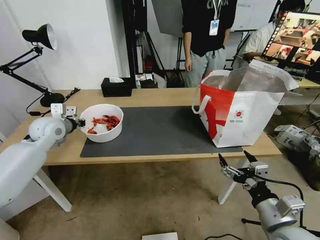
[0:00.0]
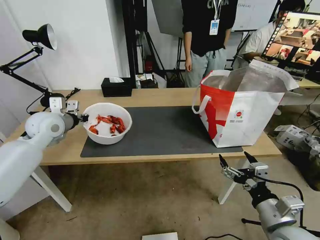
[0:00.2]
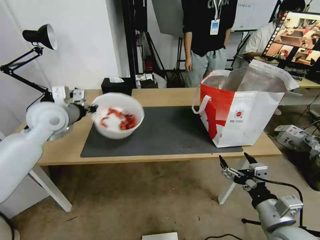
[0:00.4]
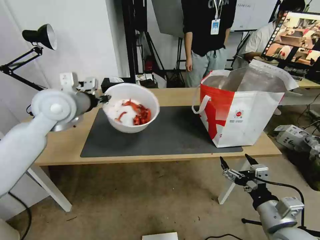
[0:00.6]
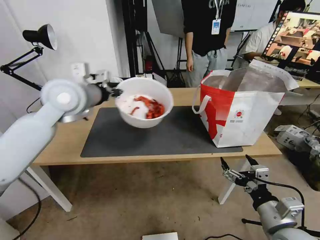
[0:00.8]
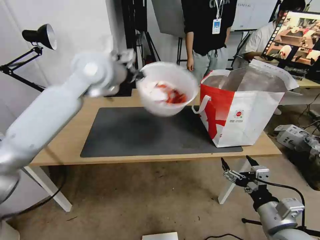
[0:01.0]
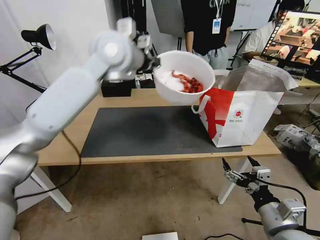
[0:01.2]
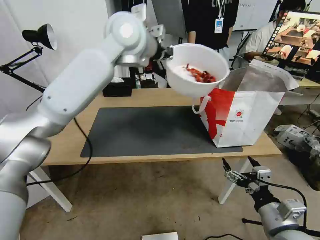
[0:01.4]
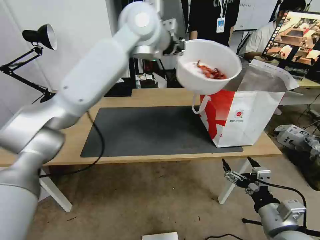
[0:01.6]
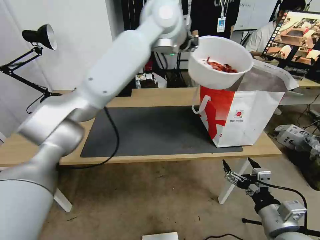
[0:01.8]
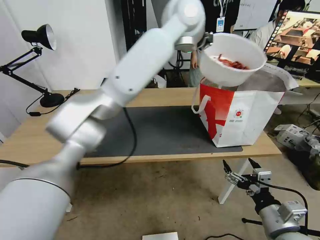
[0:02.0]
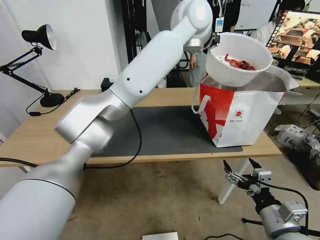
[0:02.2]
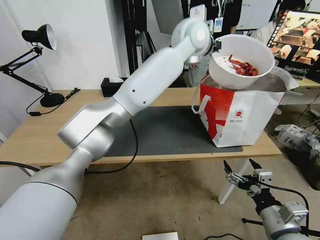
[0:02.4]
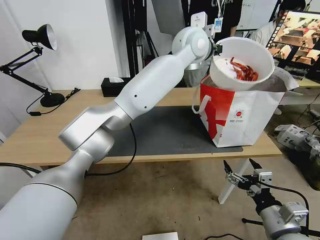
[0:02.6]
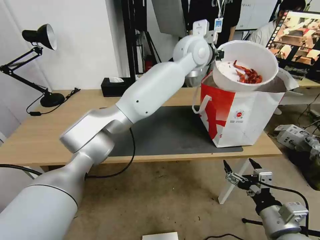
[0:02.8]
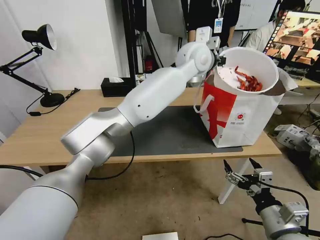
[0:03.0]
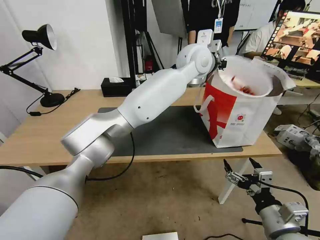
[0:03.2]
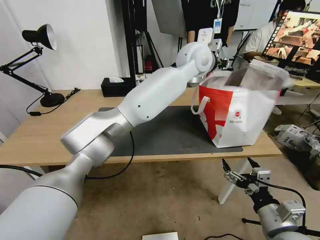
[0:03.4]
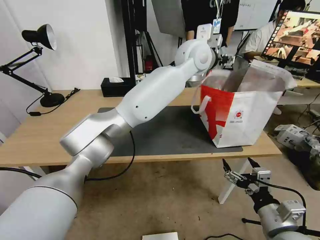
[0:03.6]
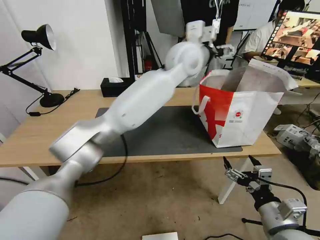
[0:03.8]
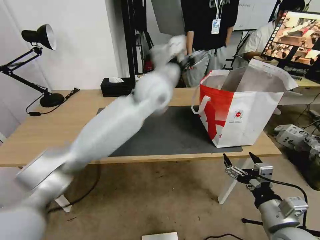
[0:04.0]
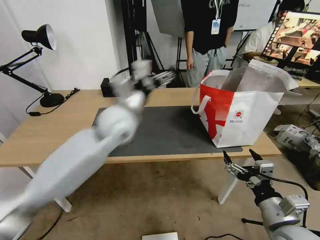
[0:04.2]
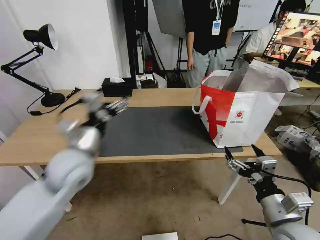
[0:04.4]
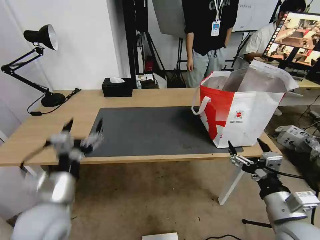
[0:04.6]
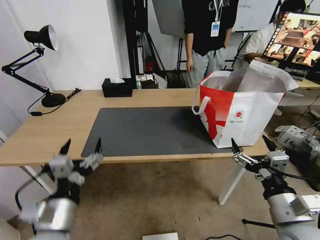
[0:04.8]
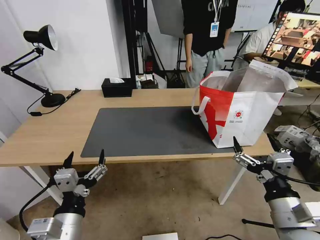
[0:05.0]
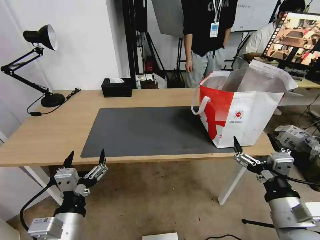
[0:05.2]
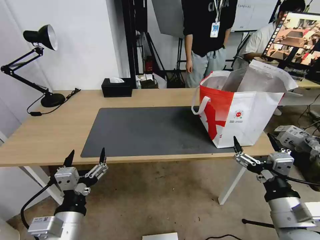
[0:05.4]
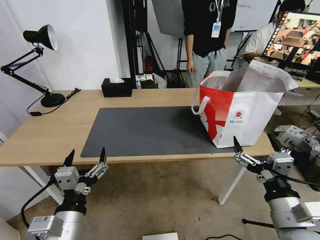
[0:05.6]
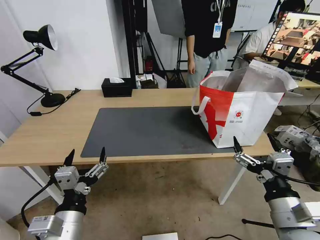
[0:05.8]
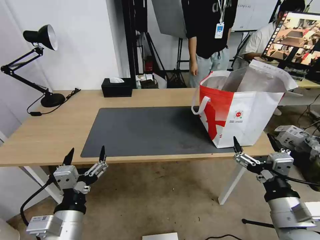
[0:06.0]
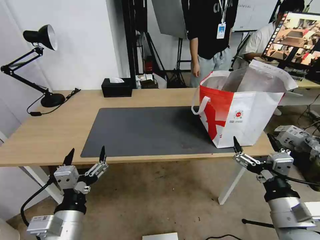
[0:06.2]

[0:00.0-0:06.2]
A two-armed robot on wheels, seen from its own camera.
Task of the whole recording: Pick up the trash from the table and place it into the takeout bag.
0.0 to 1.6 s: The left gripper goes about 40 cm to the right and upward.
1.6 to 3.2 s: The left gripper moves to the right and downward, approximately 15 cm.
3.2 to 4.6 s: The left gripper travels to the left, backward and downward by roughly 50 cm, and opens its fingers.
4.6 to 6.2 s: The left gripper heads backward, covering some 10 cm.

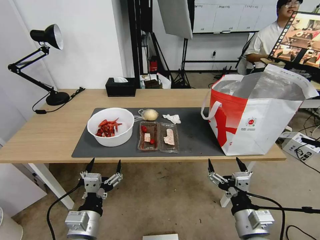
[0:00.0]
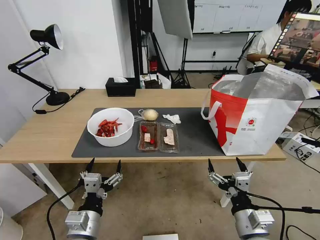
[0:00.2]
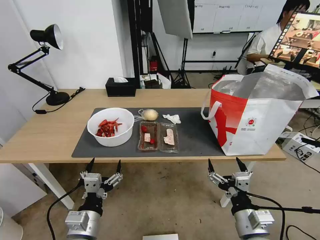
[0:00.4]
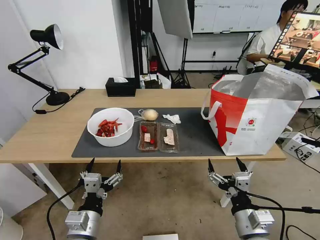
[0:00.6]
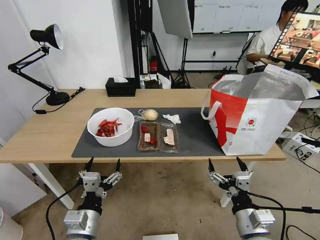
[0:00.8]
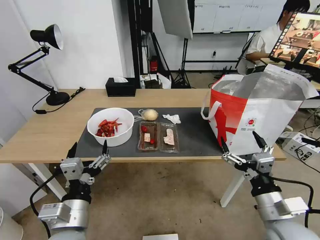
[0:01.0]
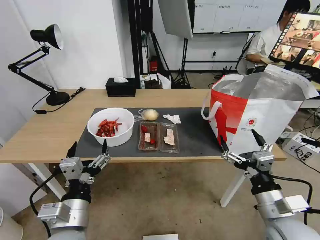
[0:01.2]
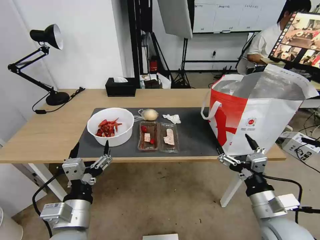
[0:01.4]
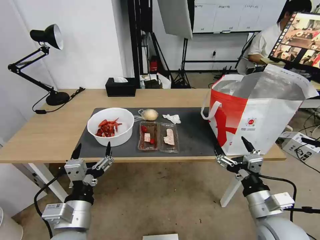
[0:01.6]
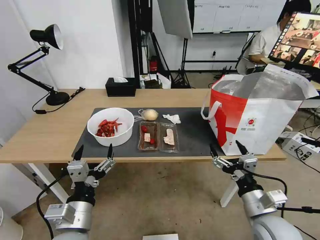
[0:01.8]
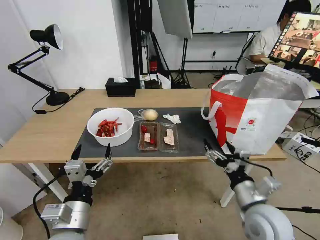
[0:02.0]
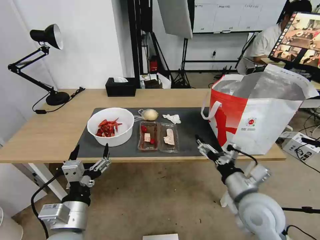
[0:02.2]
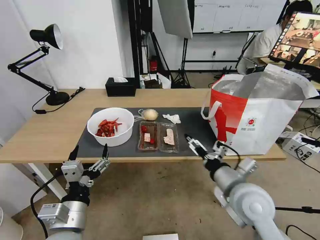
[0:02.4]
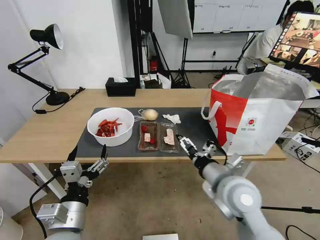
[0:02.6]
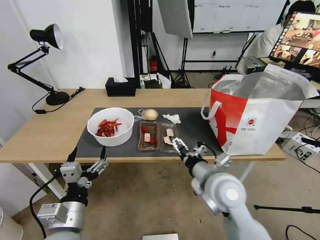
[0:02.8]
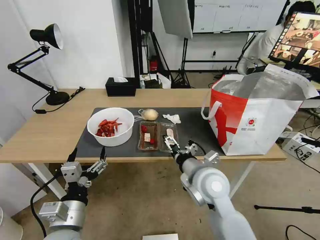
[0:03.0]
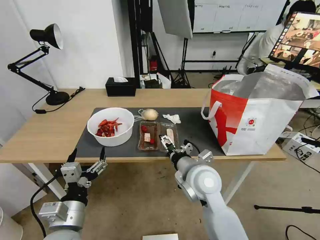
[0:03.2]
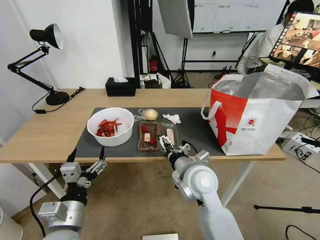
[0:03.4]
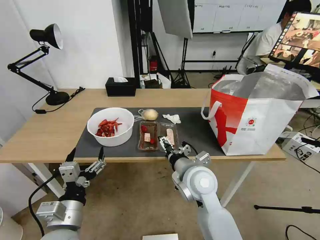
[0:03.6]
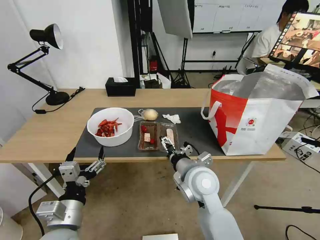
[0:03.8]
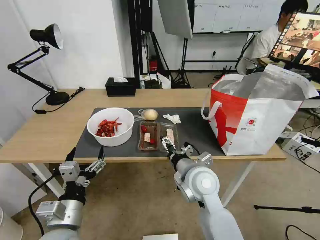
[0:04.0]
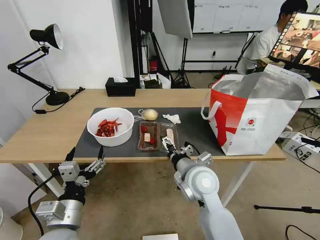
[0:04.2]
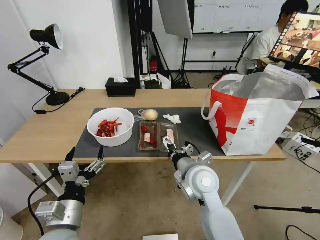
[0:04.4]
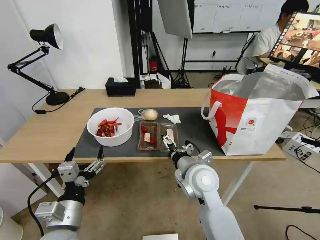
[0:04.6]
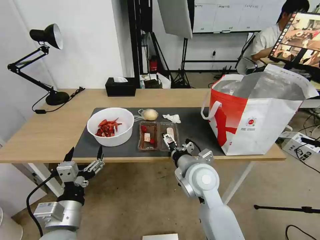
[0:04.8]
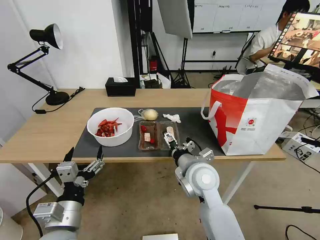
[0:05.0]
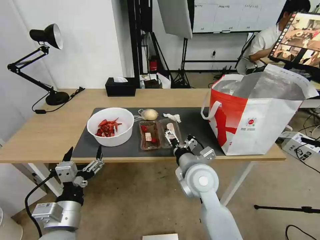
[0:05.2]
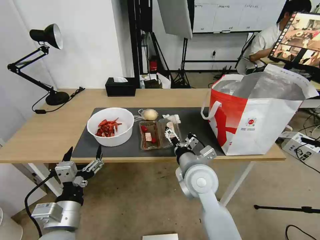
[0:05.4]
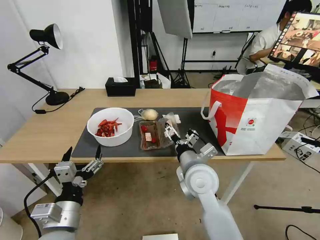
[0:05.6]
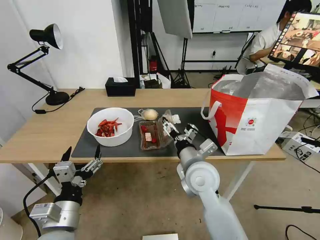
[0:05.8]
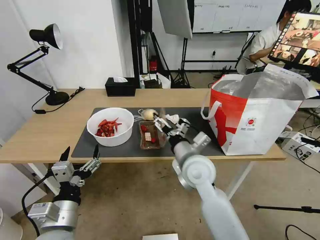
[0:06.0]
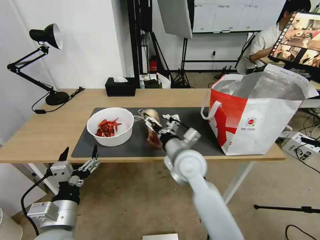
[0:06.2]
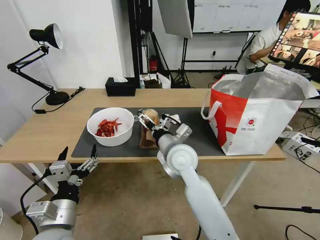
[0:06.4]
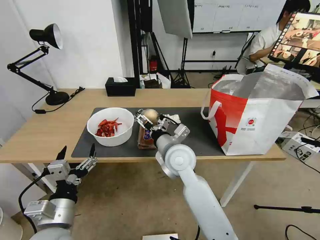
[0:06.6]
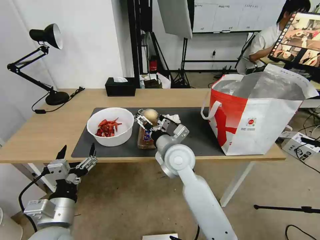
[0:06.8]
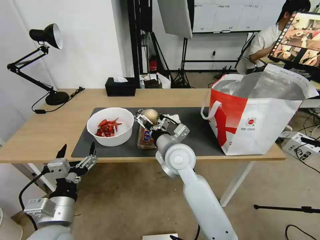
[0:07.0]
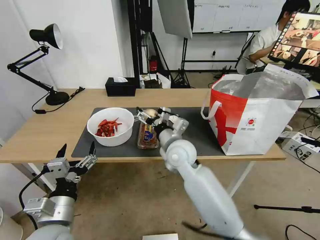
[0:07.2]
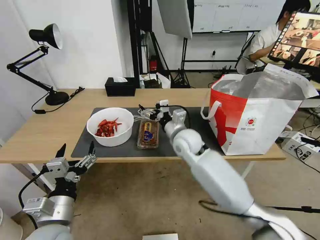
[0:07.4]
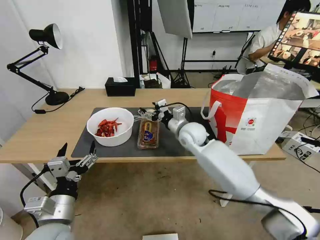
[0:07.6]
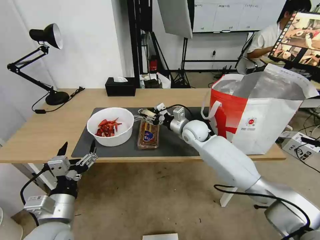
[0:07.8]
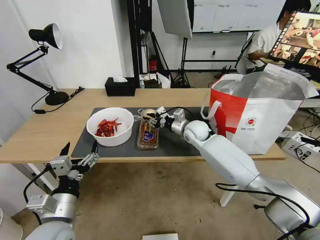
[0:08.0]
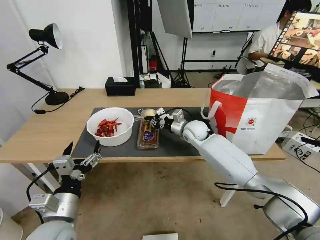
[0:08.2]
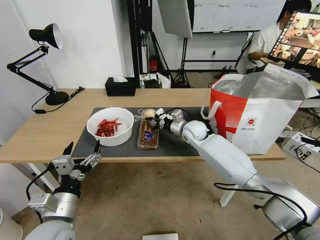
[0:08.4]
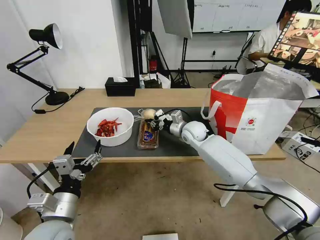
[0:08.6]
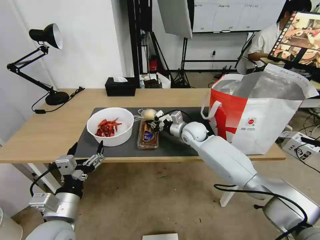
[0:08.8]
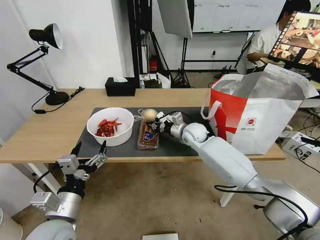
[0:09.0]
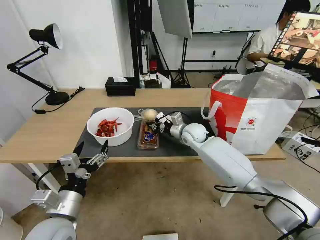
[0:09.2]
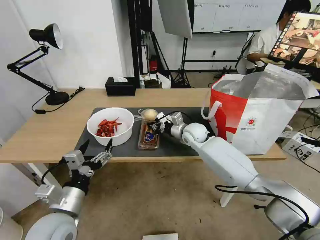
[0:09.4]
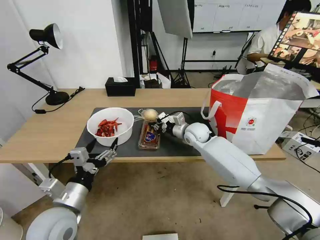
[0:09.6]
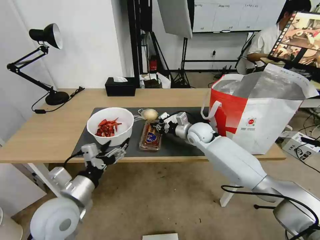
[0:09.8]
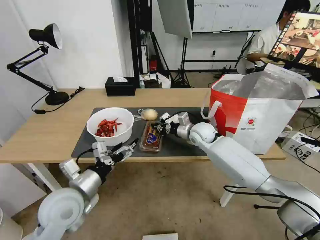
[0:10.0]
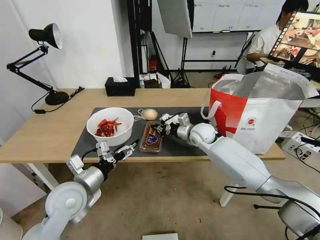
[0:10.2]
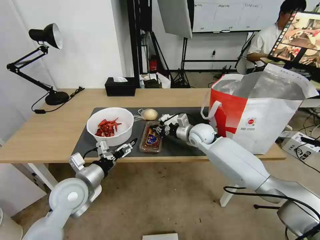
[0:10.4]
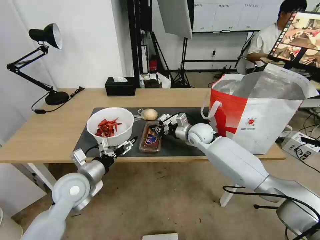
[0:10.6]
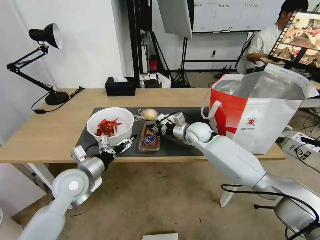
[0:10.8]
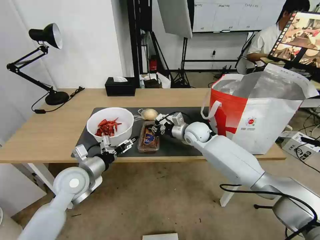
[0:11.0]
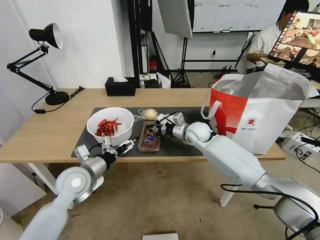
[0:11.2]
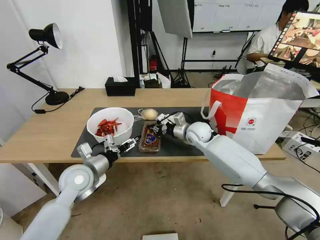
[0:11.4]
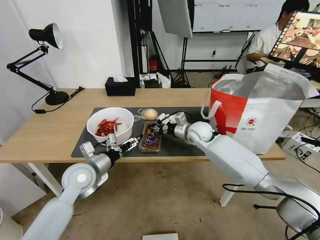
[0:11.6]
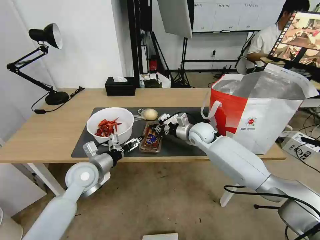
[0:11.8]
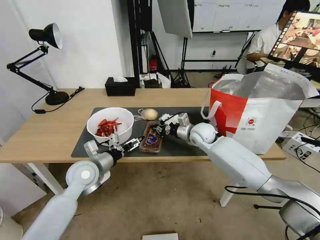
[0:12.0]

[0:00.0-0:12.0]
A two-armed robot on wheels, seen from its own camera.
Task of the whole recording: Pick up the trash from the table and place it into the takeout bag.
1.6 to 3.0 s: The right gripper heads to the left and forward, covering some 20 cm.
3.0 to 4.4 s: The grippers make only small movements.
6.0 to 7.6 s: The right gripper is displaced forward by about 15 cm.
7.6 to 9.0 s: The right gripper moves roughly 5 cm, and closes.
9.0 to 10.4 s: The left gripper heads forward, covering about 10 cm.
10.4 to 12.0 s: The left gripper moves forward, about 5 cm.

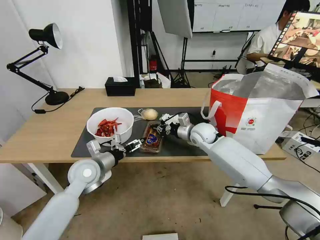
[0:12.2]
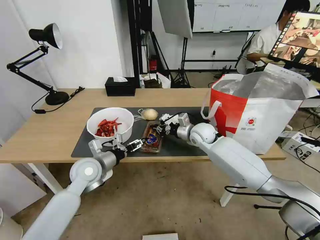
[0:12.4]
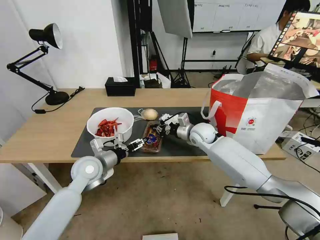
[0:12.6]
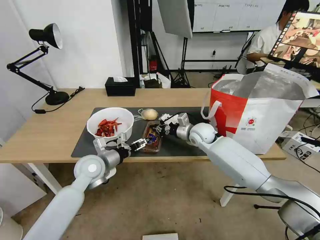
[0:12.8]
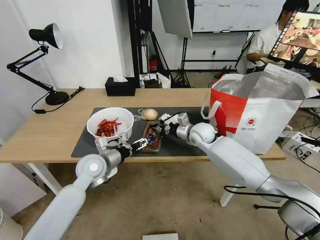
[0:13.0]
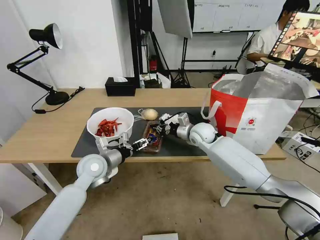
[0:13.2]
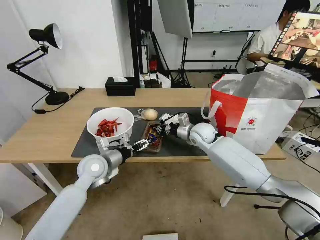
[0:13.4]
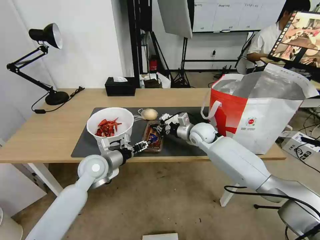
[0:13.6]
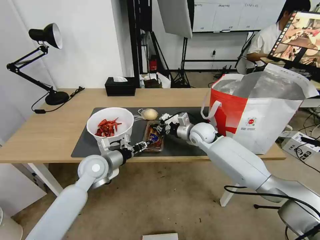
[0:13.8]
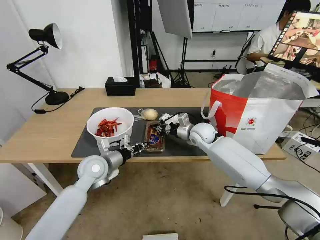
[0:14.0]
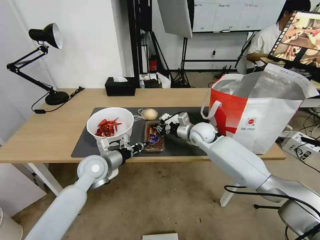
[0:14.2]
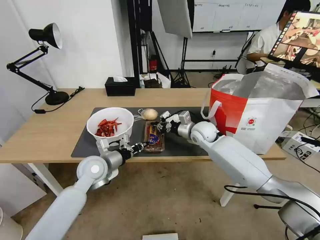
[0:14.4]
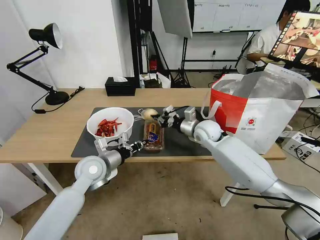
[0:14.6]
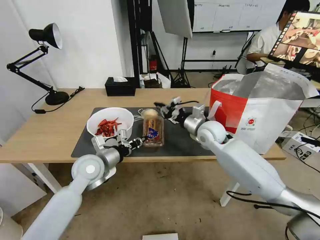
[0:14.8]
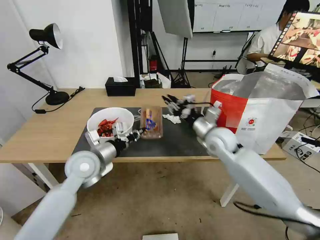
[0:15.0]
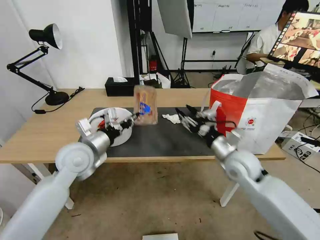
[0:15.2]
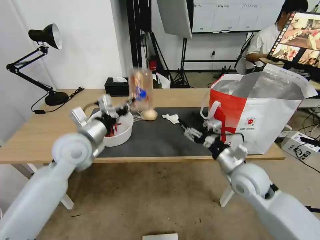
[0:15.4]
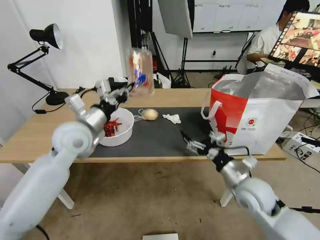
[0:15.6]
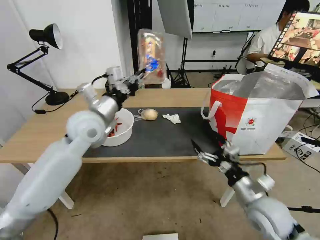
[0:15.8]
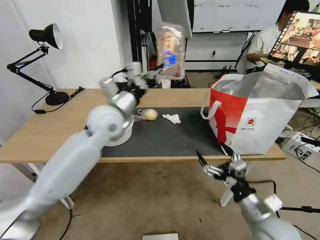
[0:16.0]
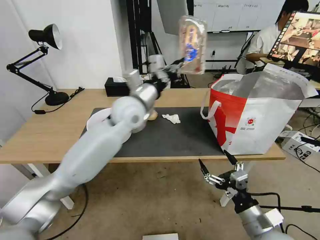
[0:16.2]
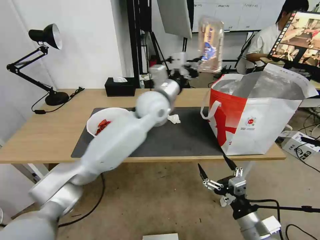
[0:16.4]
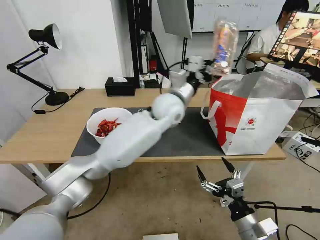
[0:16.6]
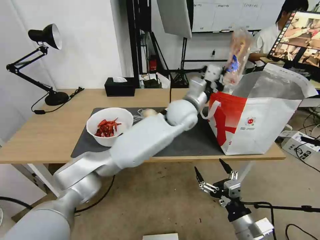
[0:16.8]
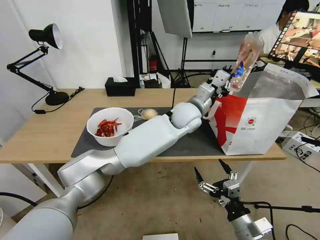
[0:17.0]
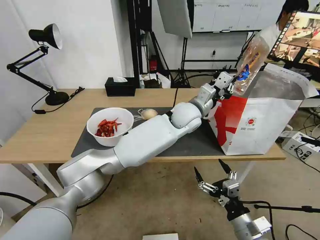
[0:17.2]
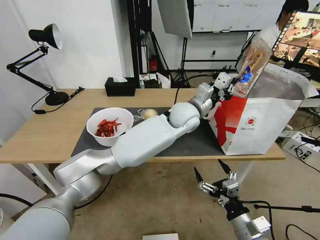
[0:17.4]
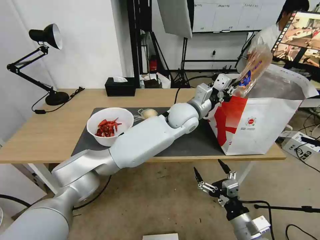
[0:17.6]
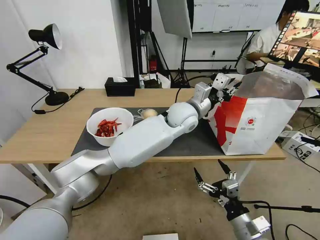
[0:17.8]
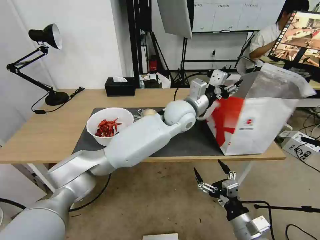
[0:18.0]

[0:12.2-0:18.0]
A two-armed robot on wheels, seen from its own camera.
Task of the whole recording: Pick up the trash from the table and place it into the takeout bag.
12.2 to 13.6 s: The left gripper closes.
13.6 to 15.0 s: The right gripper goes approximately 10 cm backward. Meanwhile the left gripper is displaced upward by some 5 cm, and closes up.
15.0 to 16.6 s: The left gripper moves to the right and forward, roughly 30 cm; the right gripper is displaced backward by about 30 cm, and opens its fingers.
16.6 to 18.0 s: The left gripper opens.
